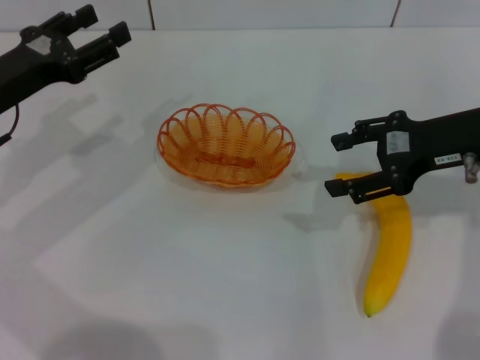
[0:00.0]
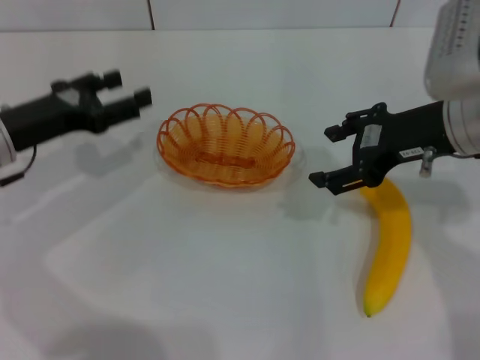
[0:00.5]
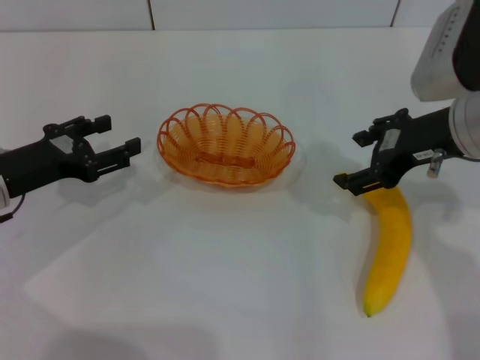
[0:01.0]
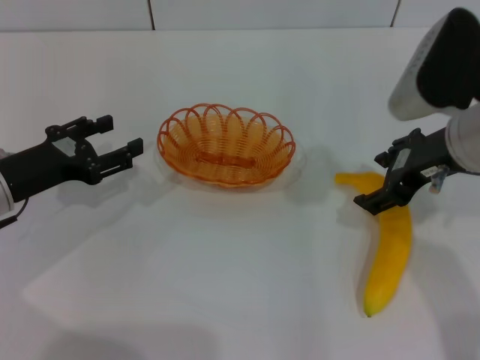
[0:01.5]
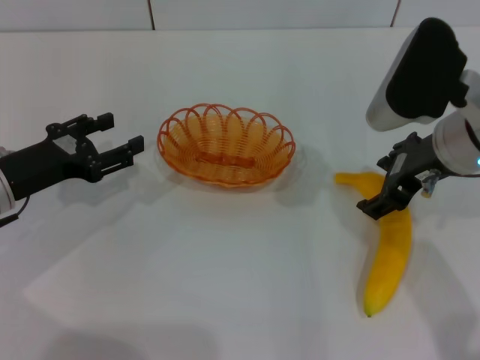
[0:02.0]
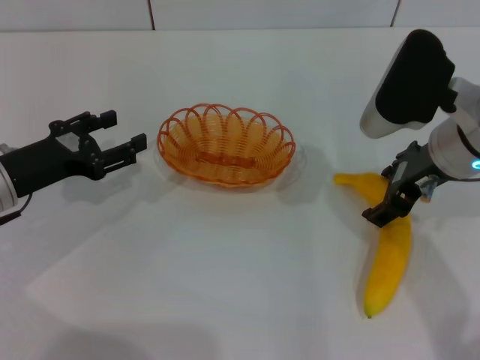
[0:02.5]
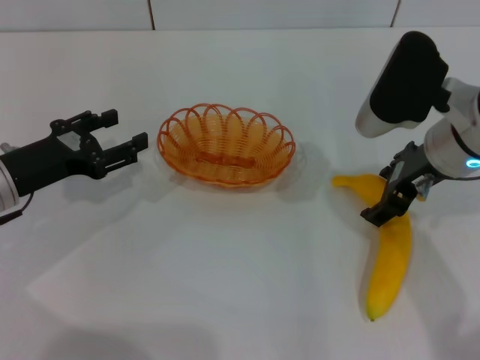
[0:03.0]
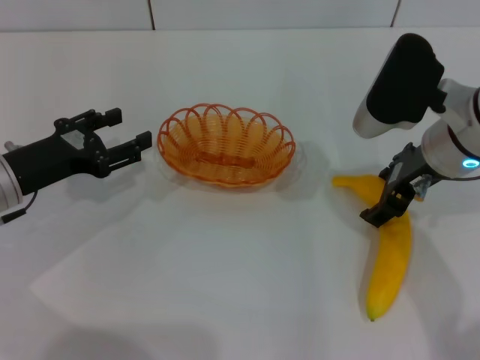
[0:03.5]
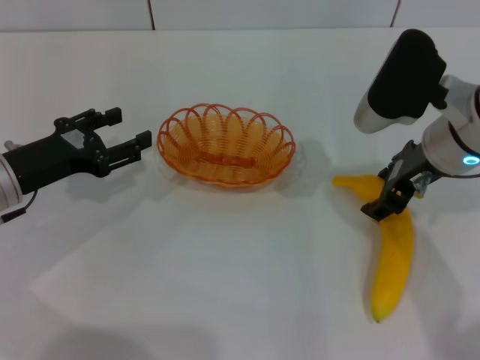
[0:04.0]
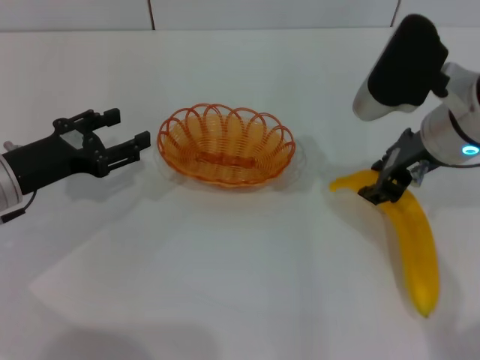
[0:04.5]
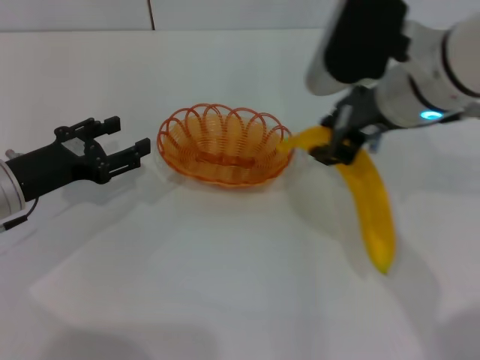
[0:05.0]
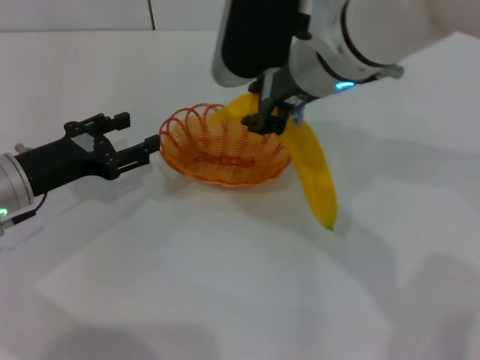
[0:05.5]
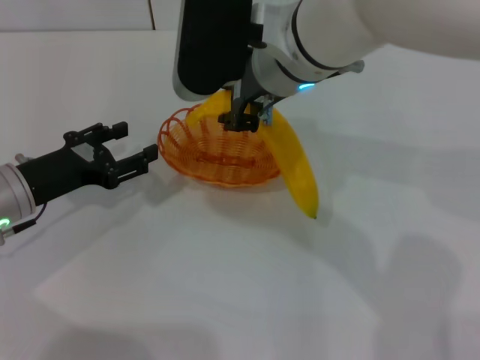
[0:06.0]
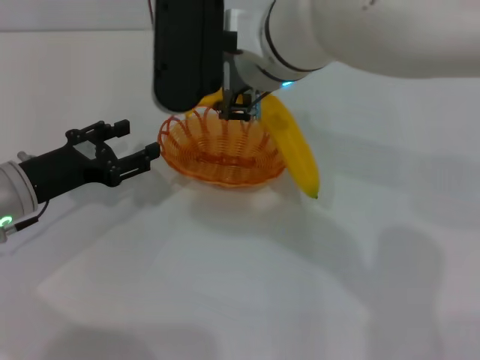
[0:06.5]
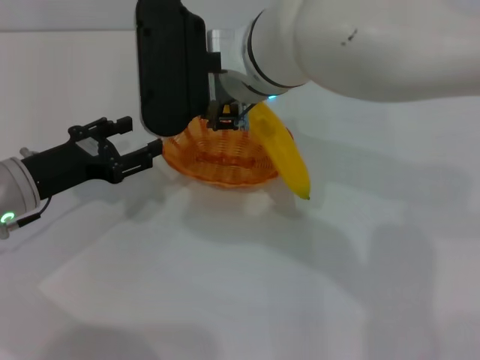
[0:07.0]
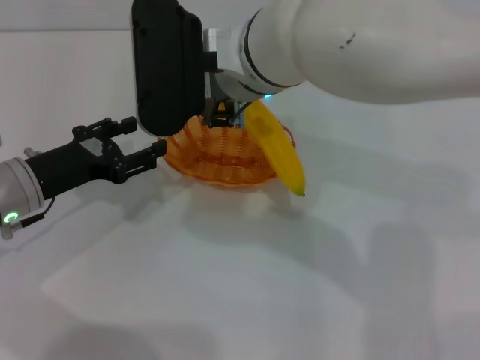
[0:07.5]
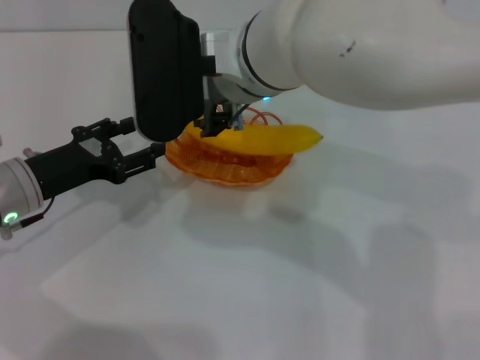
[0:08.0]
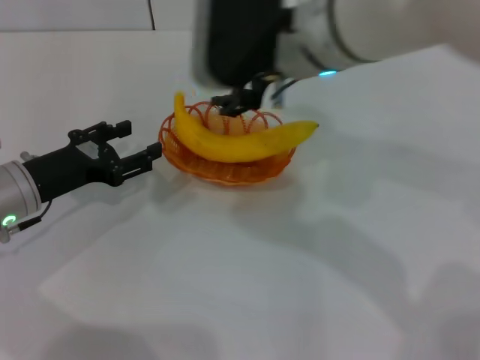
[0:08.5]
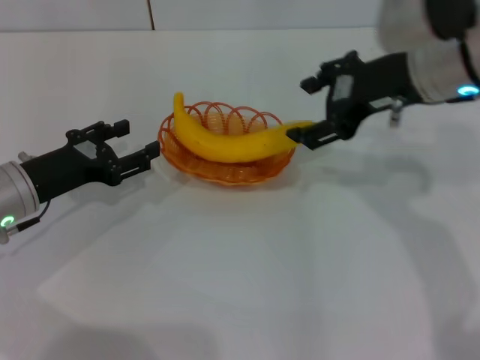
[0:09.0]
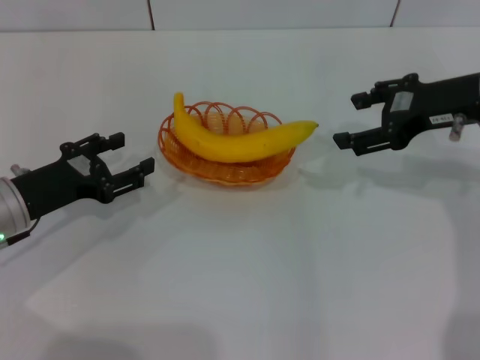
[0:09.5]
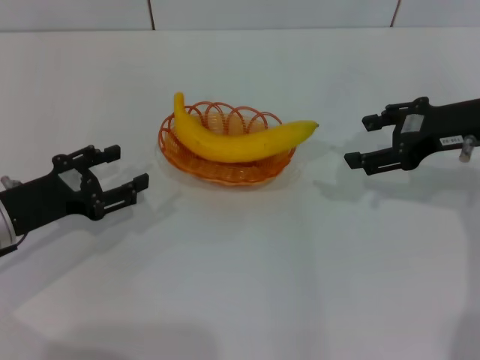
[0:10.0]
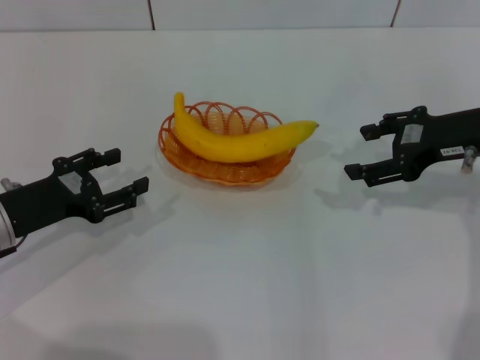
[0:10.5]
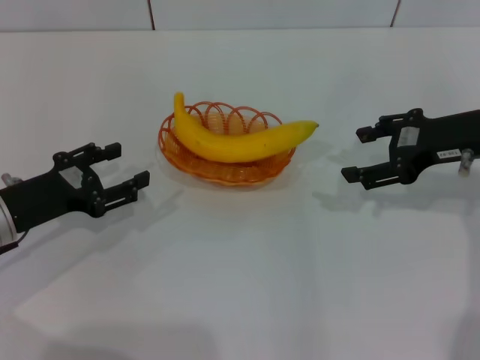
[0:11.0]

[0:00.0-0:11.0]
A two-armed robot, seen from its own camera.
Step, 0:00.0 to 0:04.5: Pick up the banana with the right gripper.
Step, 0:05.0 to 0:08.0: Place the banana into the basket with the right gripper.
0:00.0 to 0:02.0: The left gripper travels downward by about 5 cm; the right gripper travels to the left by some 5 cm.
0:02.0 to 0:03.5: There are only small adjustments of the grippers.
0:03.5 to 0:05.5: The right gripper moves to the left and upward, about 15 cm, and closes its fingers.
0:05.5 to 0:07.5: The right gripper shifts roughly 5 cm to the left.
0:07.5 to 0:09.0: The right gripper shifts roughly 20 cm to the right, and opens its fingers.
0:09.0 to 0:11.0: The right gripper moves to the right and downward, approximately 10 cm.
